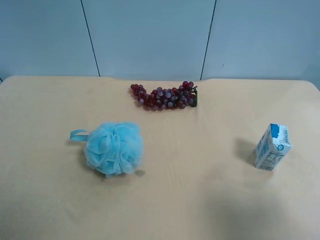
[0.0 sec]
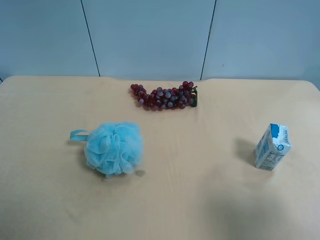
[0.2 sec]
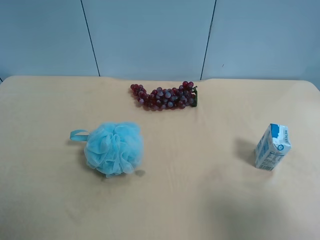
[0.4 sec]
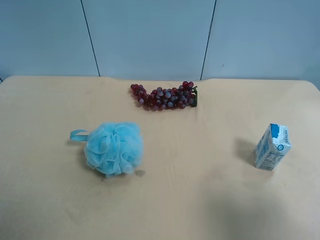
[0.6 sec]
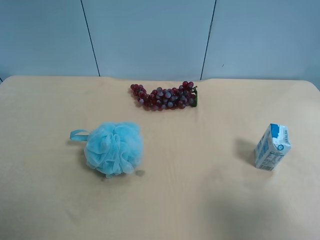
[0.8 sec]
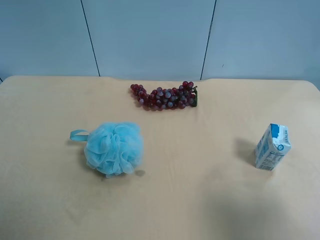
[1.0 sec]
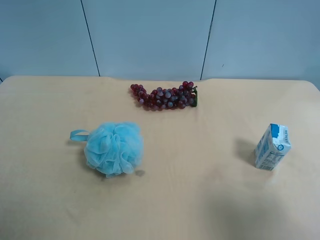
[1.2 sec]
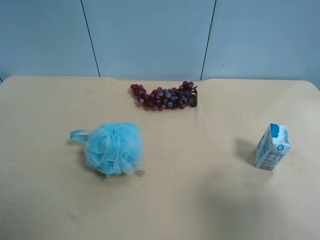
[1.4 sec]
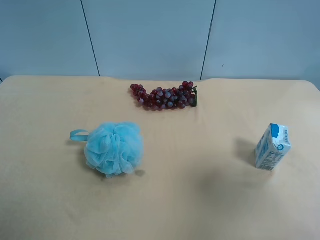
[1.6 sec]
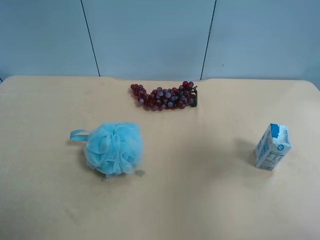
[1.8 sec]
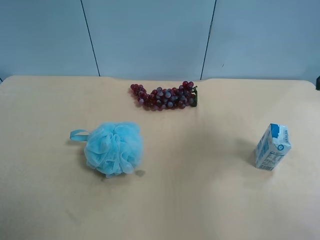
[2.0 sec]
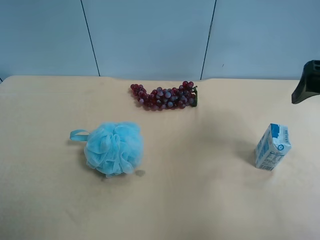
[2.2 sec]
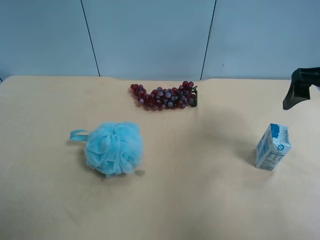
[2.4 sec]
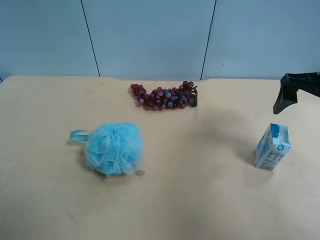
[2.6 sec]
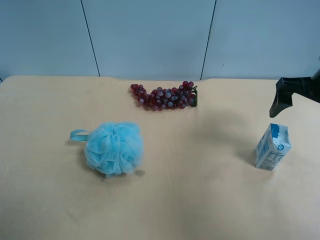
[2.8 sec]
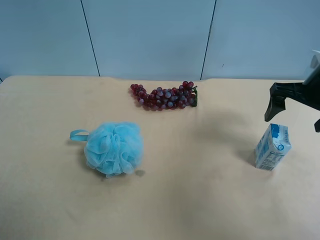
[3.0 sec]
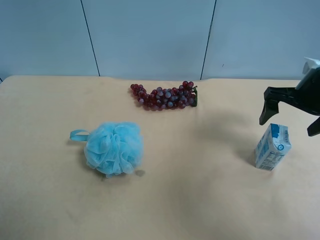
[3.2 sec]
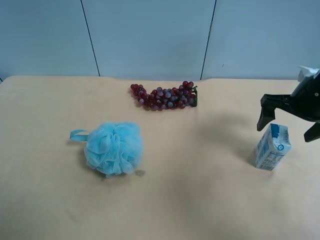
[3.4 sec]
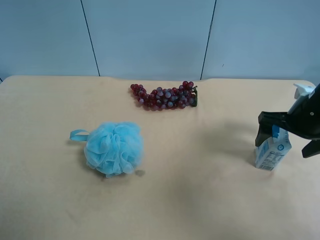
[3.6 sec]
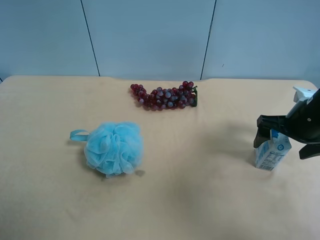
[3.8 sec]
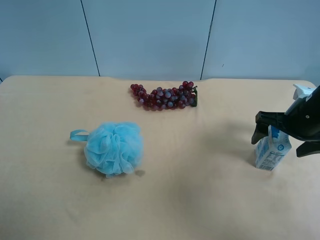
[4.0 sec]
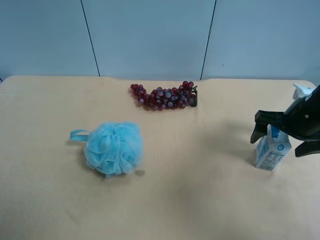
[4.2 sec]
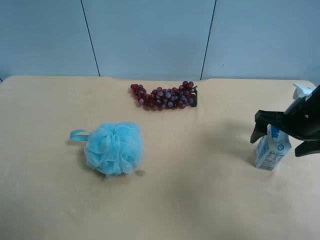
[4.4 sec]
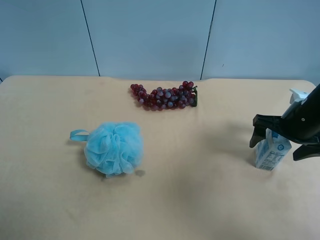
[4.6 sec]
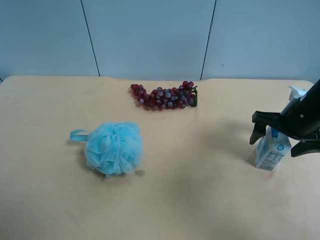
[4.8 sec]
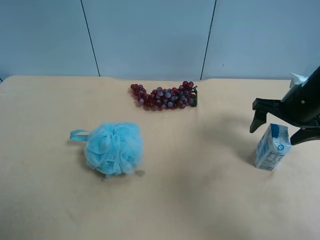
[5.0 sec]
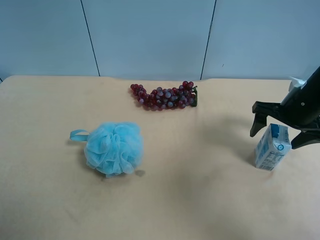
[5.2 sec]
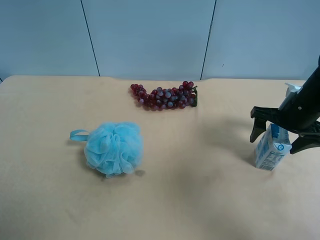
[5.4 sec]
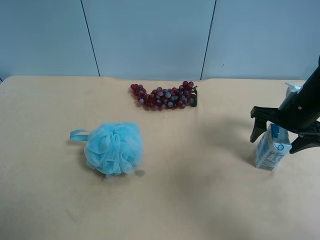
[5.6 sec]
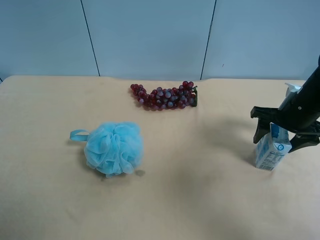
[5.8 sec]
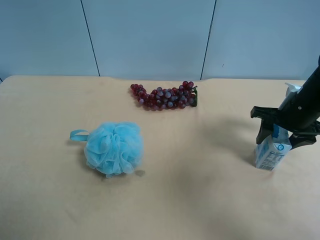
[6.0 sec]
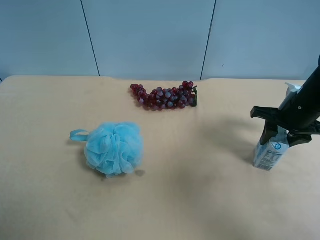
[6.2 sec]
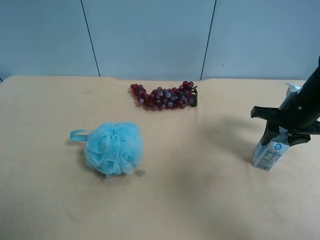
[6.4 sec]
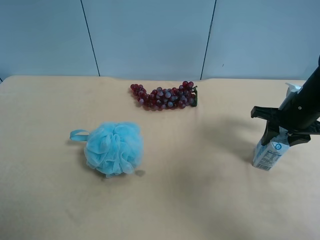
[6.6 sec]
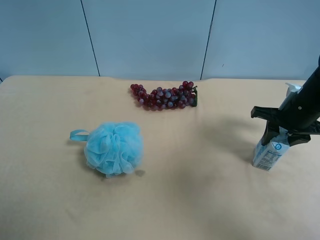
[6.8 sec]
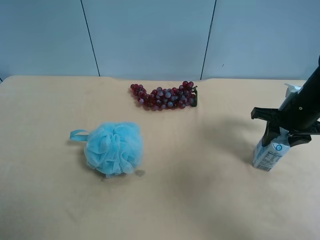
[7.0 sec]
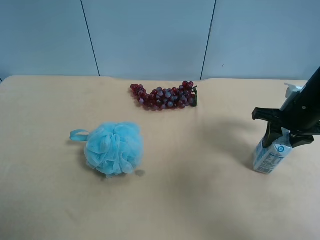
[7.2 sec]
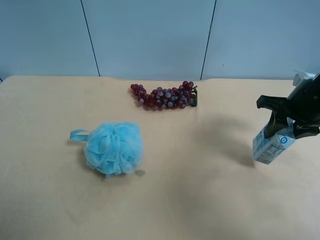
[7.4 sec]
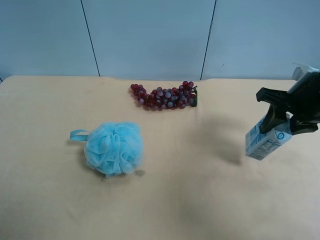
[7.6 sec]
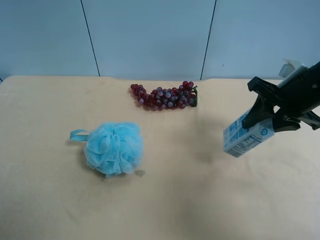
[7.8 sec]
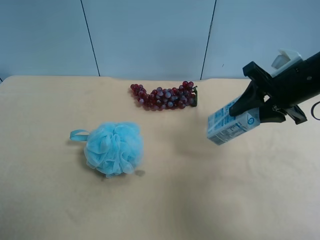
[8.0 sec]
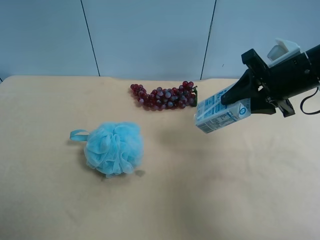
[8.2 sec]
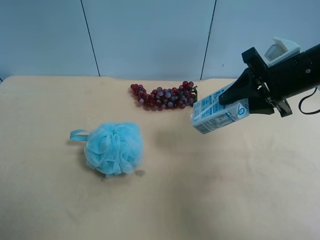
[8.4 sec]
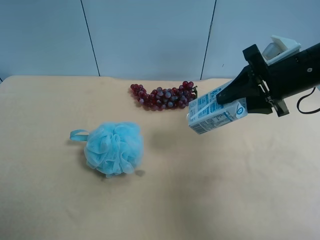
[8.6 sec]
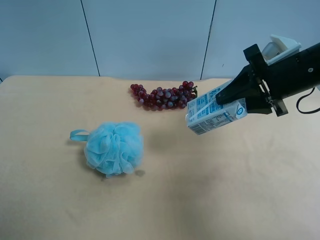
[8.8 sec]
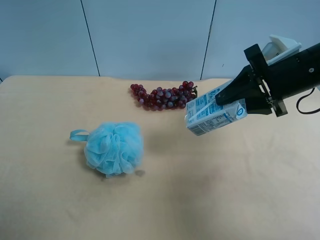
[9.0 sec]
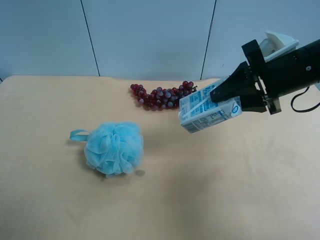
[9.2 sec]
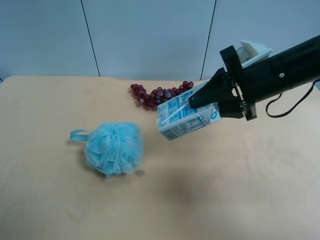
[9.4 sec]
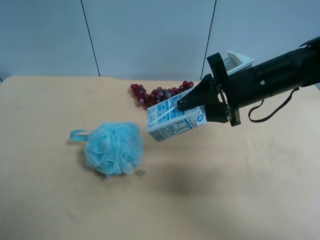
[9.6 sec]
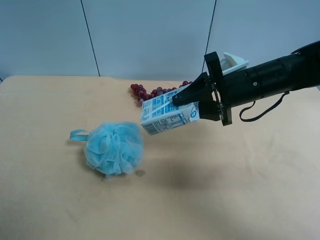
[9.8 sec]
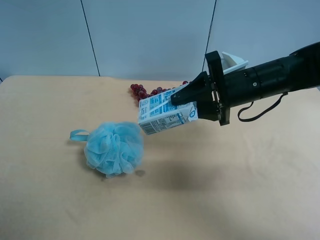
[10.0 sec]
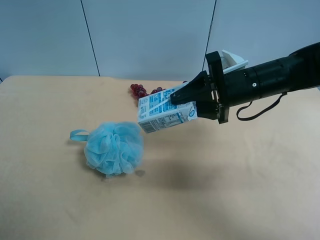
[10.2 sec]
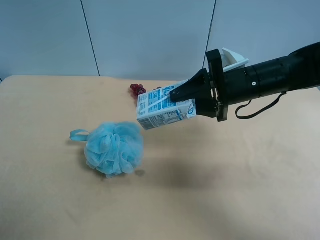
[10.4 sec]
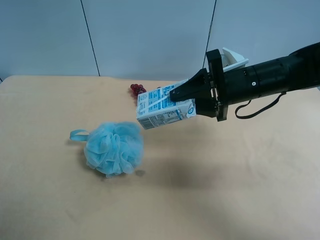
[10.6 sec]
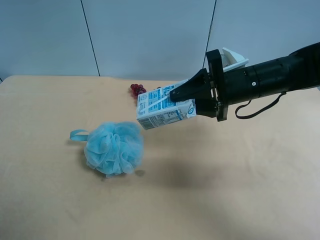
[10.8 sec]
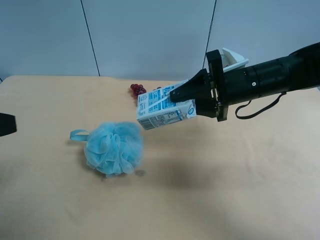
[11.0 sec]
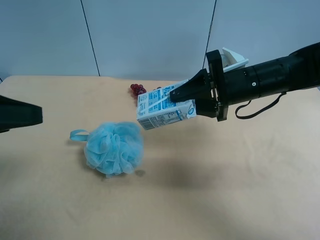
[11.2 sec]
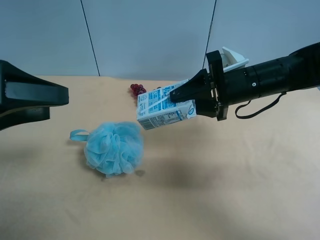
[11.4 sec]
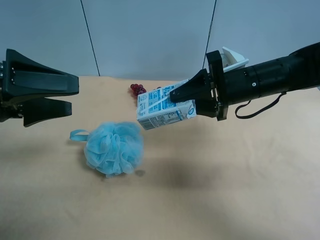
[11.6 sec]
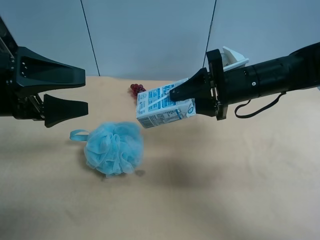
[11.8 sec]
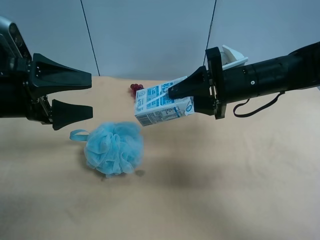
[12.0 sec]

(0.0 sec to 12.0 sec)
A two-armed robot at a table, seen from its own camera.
Task of the whole recording: use the right gripper to pick up the item and transfer it from the right gripper to the left gripper.
0.0 sec - 1.6 sec: The right gripper moves forward and upward, roughly 10 cm.
1.6 sec - 3.0 sec: The right gripper heads forward and downward, covering roughly 25 cm.
3.0 sec - 4.4 sec: The right gripper travels downward by roughly 5 cm.
4.4 sec - 6.0 sec: The right gripper closes up.
6.0 sec - 7.6 sec: The right gripper shifts approximately 5 cm upward.
7.6 sec - 9.0 sec: The right gripper moves roughly 5 cm.
9.0 sec - 10.4 sec: The right gripper shifts about 5 cm to the left.
10.4 sec - 12.0 sec: The left gripper shifts about 20 cm forward.

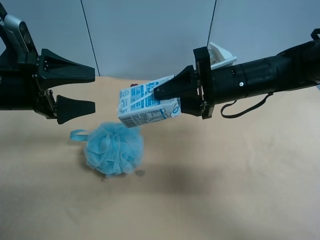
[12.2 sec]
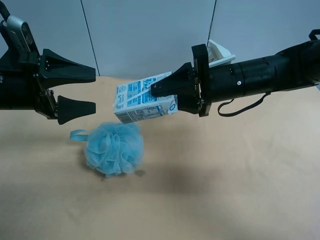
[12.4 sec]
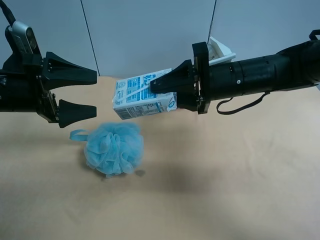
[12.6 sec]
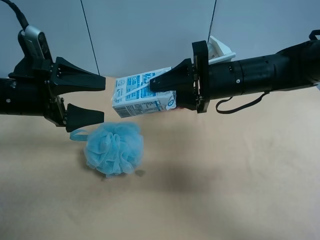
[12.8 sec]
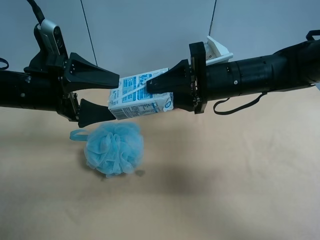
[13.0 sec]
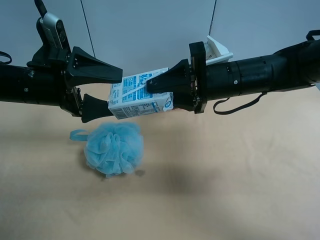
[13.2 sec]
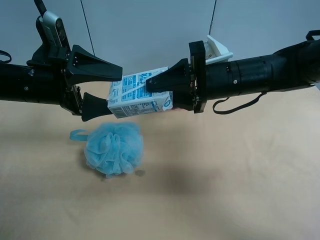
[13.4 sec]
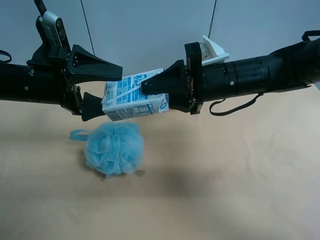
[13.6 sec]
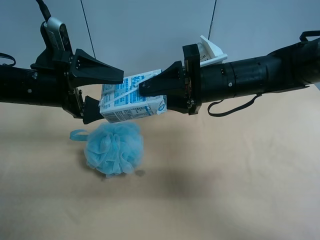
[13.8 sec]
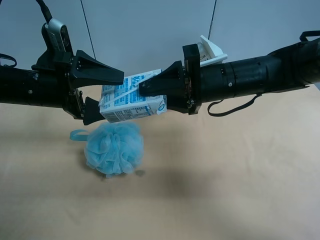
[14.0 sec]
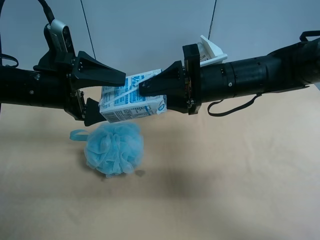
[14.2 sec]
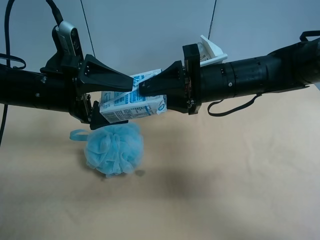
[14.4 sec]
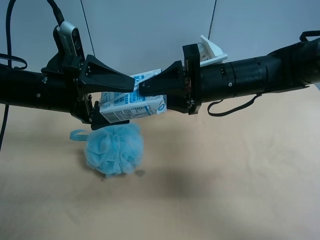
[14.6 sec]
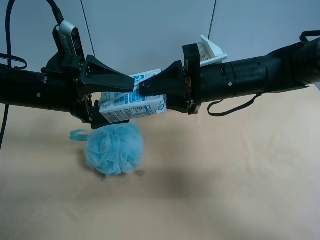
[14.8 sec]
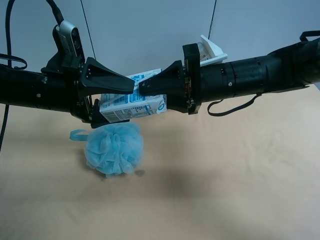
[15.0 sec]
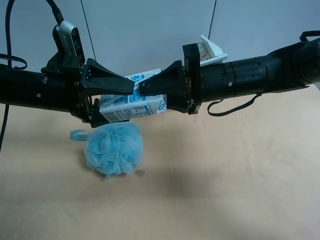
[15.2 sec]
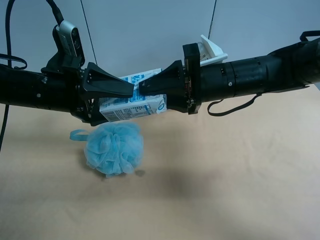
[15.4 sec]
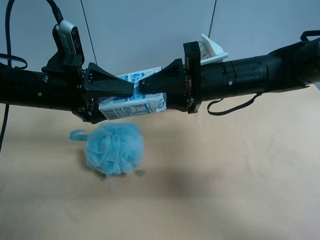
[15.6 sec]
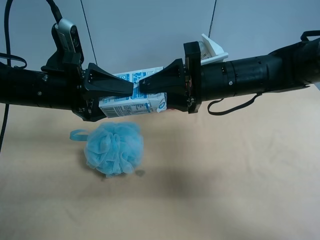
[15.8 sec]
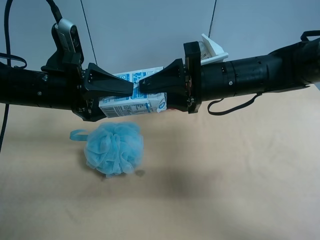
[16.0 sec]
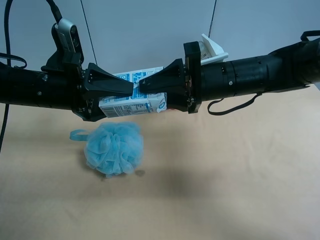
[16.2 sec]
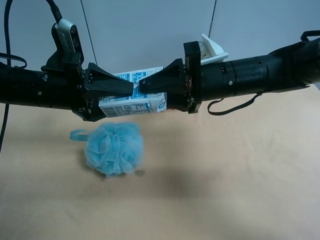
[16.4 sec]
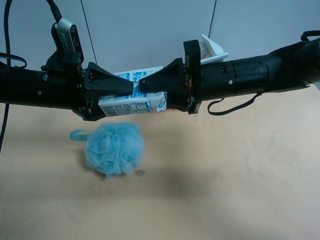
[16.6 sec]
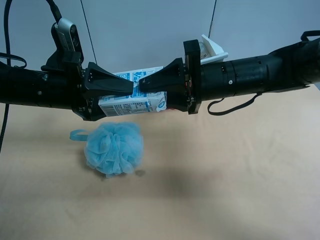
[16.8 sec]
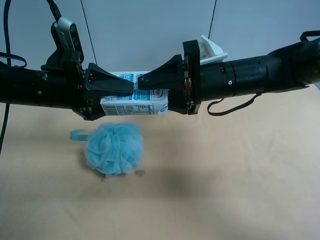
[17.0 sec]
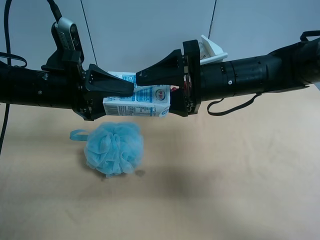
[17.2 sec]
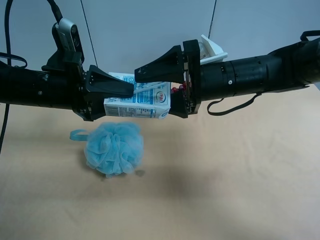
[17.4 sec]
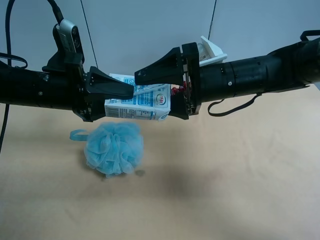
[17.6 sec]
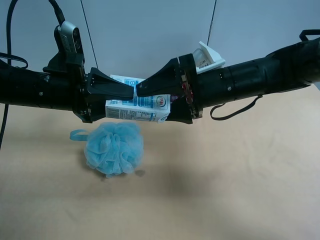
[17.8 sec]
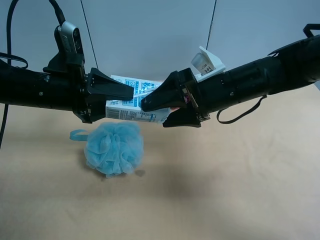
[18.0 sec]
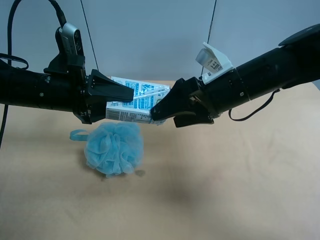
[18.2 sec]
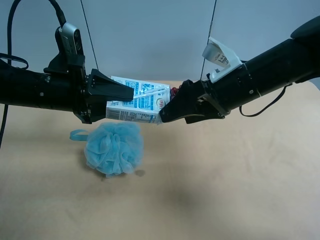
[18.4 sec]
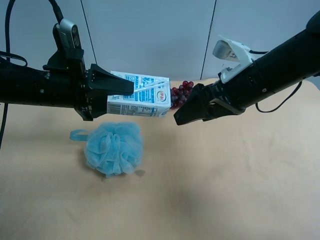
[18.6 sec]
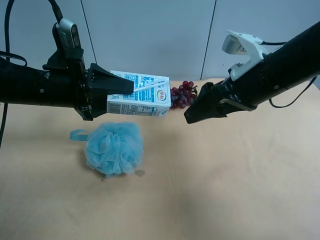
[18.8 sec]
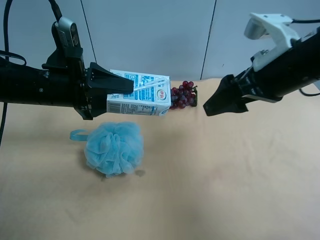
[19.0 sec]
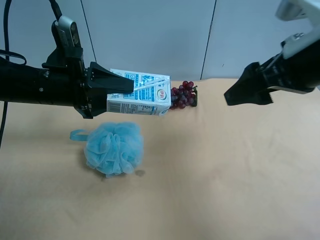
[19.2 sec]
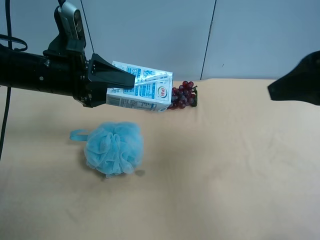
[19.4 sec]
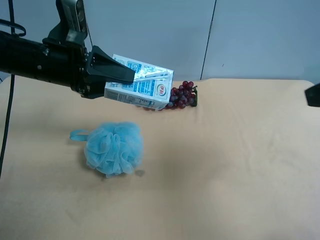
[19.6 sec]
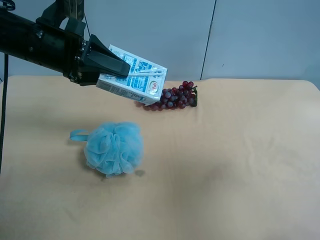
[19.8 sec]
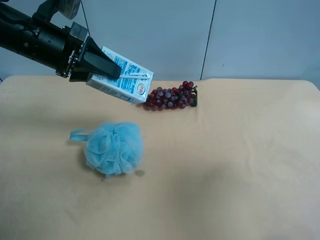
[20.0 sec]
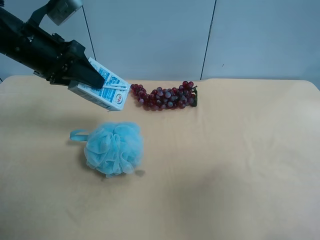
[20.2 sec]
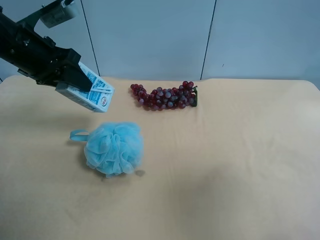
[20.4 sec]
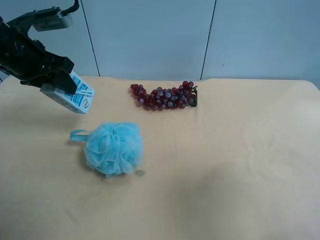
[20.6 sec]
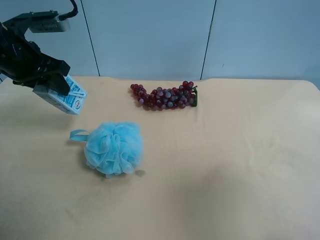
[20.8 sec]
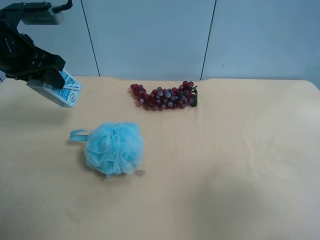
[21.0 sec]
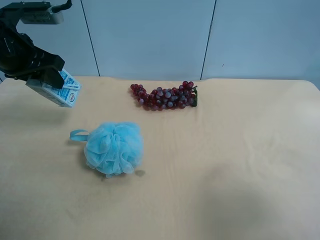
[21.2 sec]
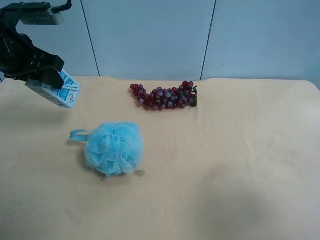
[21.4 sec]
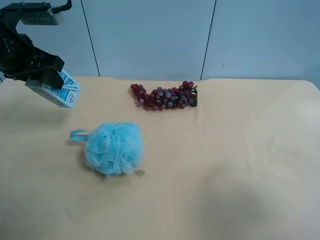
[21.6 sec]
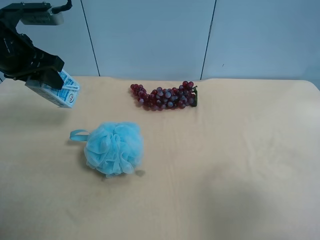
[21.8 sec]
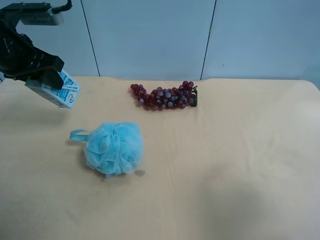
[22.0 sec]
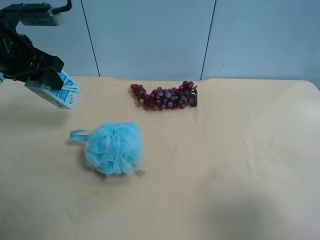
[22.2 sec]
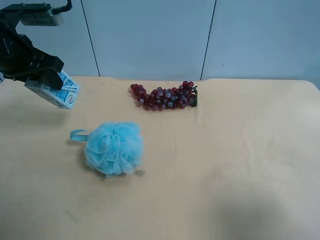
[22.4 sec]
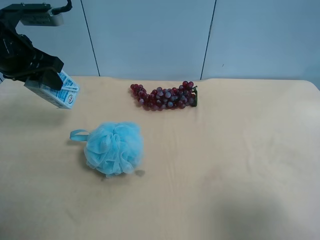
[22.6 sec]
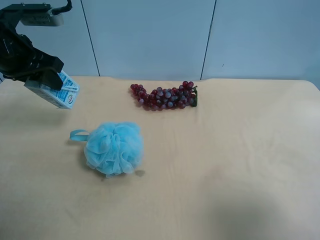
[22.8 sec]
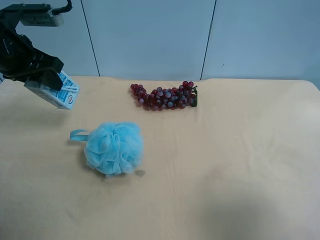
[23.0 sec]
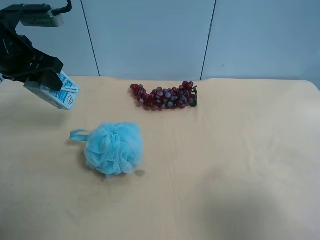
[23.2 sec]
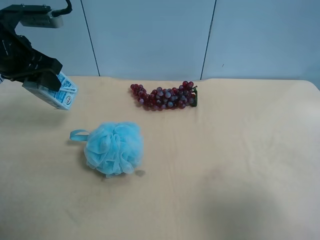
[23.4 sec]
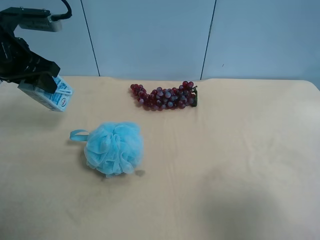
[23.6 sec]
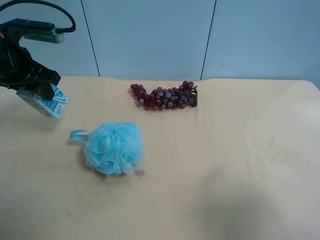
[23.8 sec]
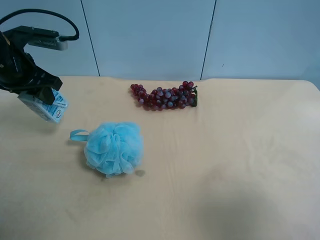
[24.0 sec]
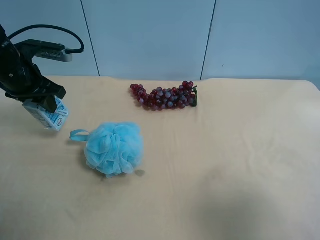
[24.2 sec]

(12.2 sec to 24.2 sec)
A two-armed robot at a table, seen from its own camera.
Task of the whole recording: use the right gripper to pick up the item and transfer it from the right gripper to the left gripper.
12.2 sec - 13.8 sec: The grippers stay close to where they were, moving slightly.
13.8 sec - 15.2 sec: The grippers make only small movements.
15.2 sec - 16.6 sec: The left gripper closes.
16.6 sec - 18.2 sec: The right gripper opens up.
18.2 sec - 19.8 sec: The right gripper heads backward, upward and to the right, covering approximately 30 cm, while the left gripper shifts approximately 5 cm upward.
19.8 sec - 21.2 sec: The right gripper moves downward, roughly 5 cm; the left gripper shifts roughly 5 cm to the left.
21.2 sec - 22.6 sec: The grippers make only small movements.
22.6 sec - 24.2 sec: The left gripper moves downward, about 5 cm.
